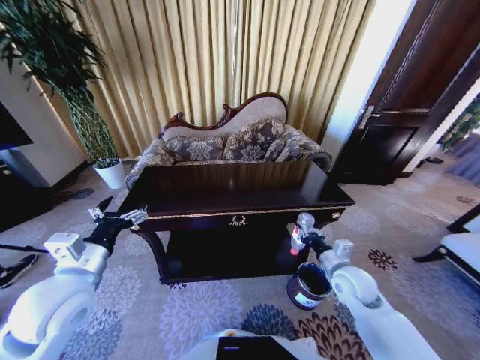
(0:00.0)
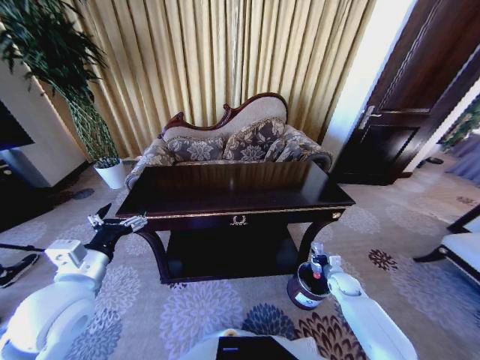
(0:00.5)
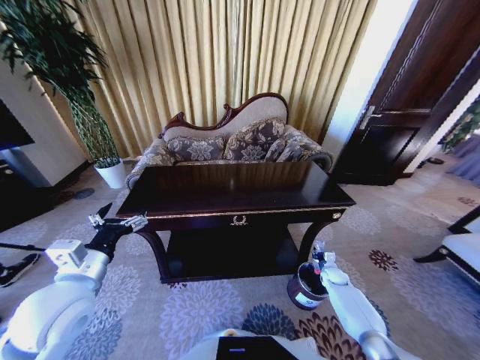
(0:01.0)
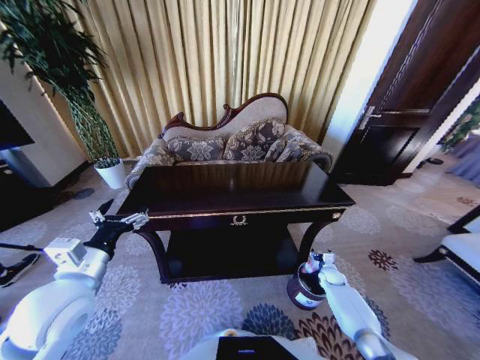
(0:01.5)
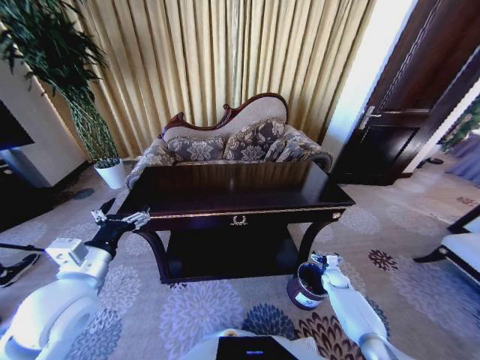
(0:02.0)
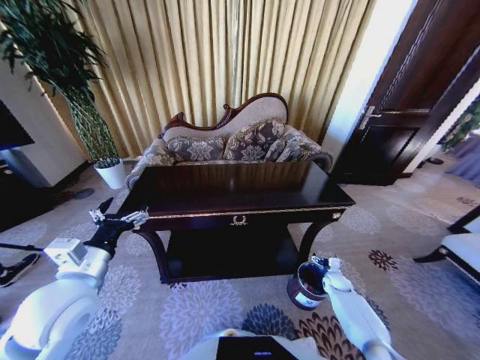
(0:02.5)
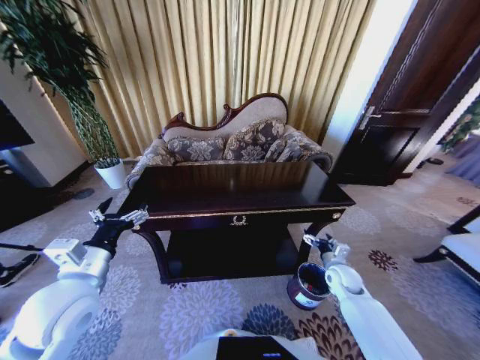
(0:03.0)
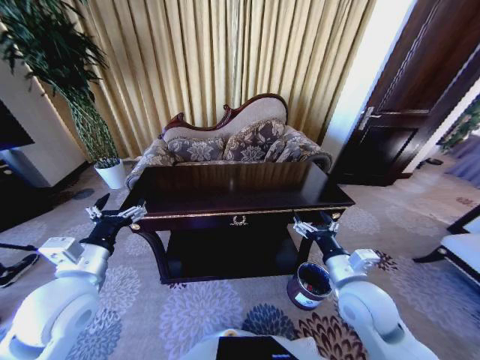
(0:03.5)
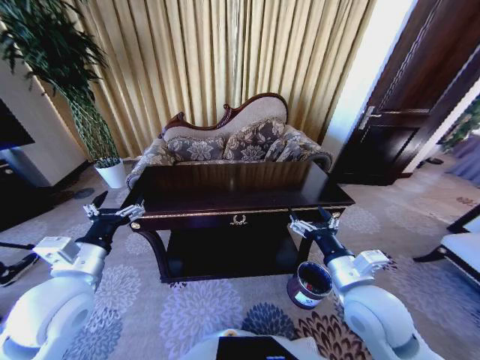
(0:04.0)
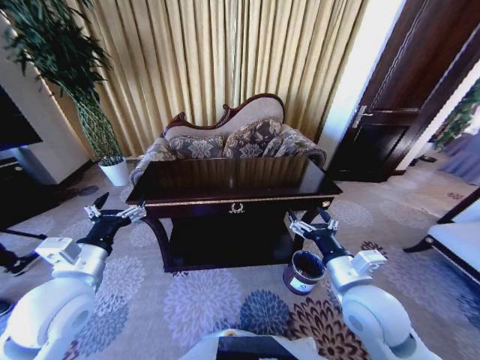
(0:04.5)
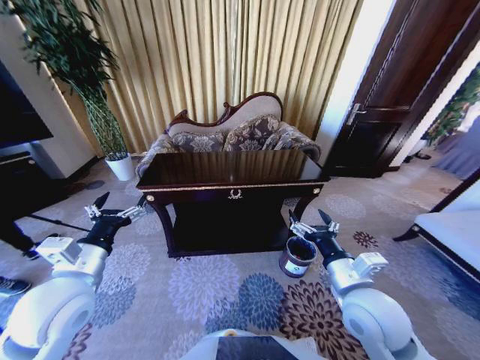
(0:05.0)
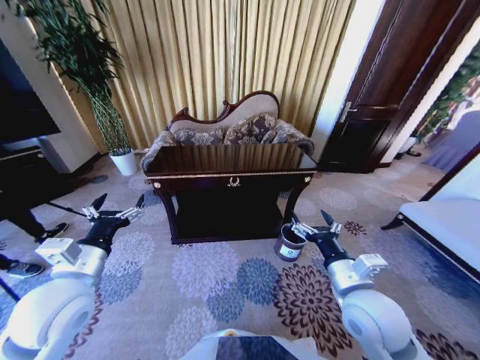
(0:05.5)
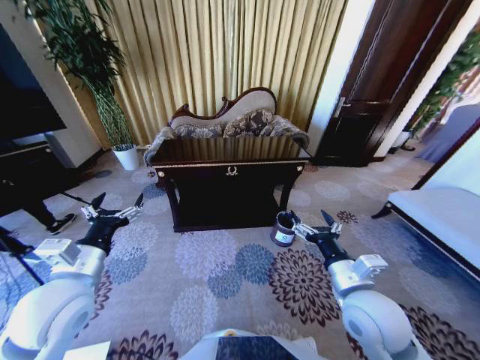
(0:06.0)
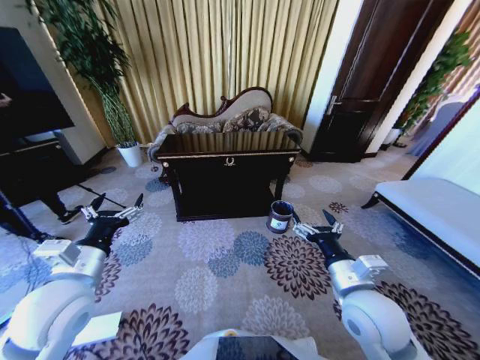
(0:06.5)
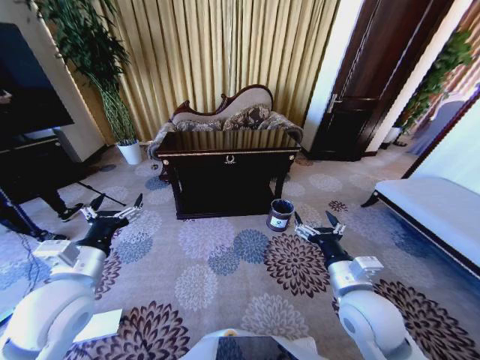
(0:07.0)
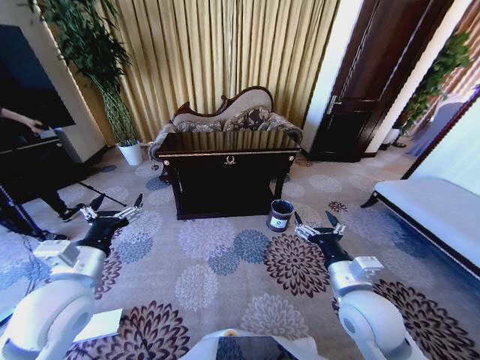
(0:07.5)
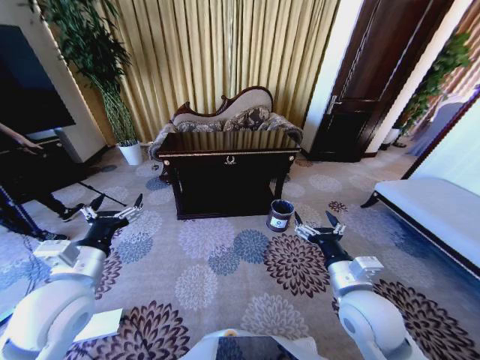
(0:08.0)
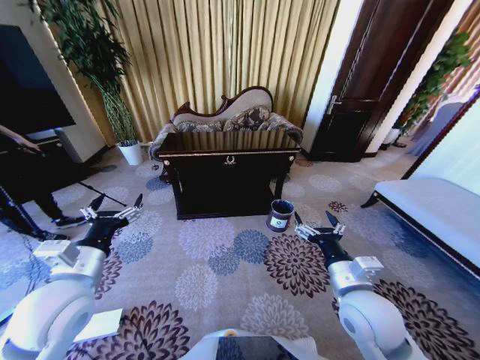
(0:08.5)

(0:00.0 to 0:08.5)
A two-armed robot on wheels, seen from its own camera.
Task of the whole recording: Move to the front of the table and place the trash on the table into the trash bin.
0:00.0 - 0:02.0: The right gripper heads downward and to the right, covering roughly 25 cm, and opens.
0:02.0 - 0:04.0: The right gripper shifts roughly 40 cm upward, to the left and backward.
0:06.5 - 0:08.5: Neither gripper changes place.
